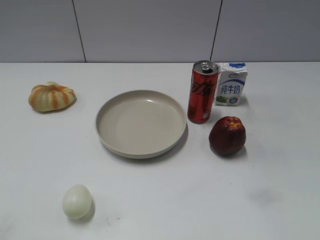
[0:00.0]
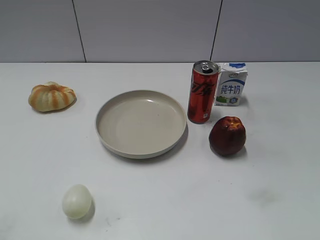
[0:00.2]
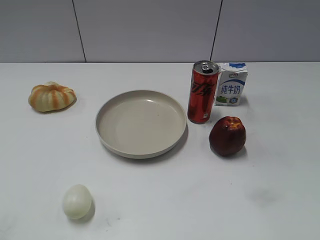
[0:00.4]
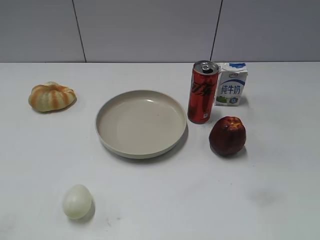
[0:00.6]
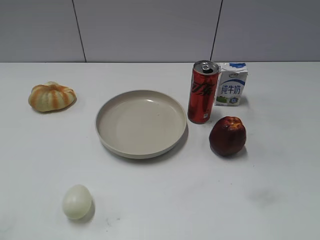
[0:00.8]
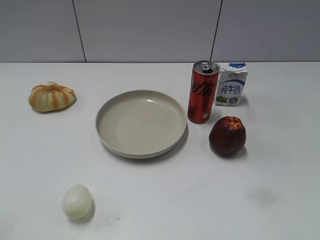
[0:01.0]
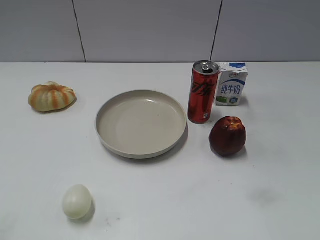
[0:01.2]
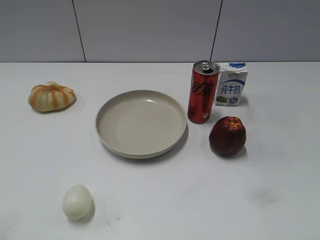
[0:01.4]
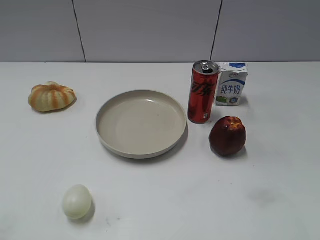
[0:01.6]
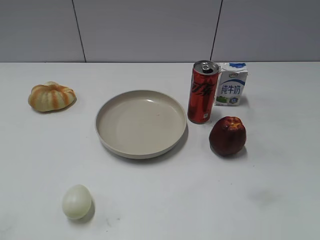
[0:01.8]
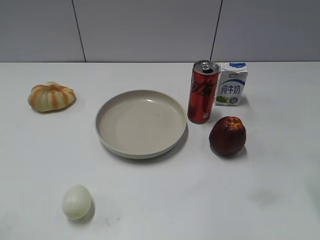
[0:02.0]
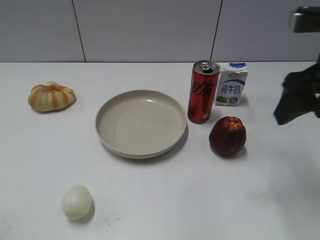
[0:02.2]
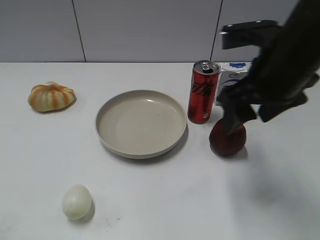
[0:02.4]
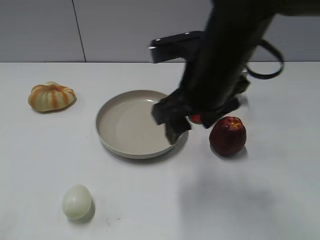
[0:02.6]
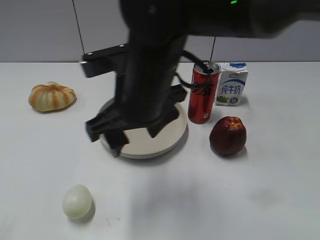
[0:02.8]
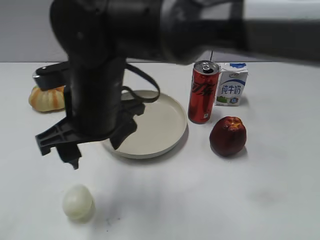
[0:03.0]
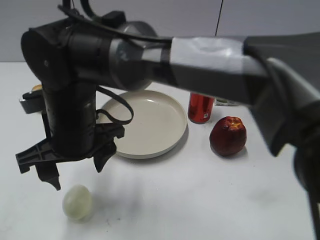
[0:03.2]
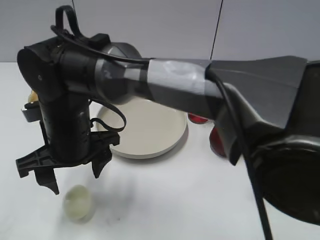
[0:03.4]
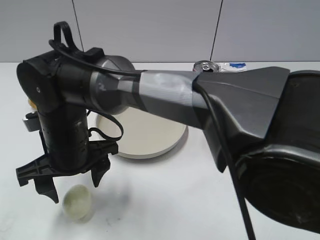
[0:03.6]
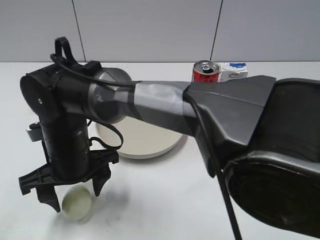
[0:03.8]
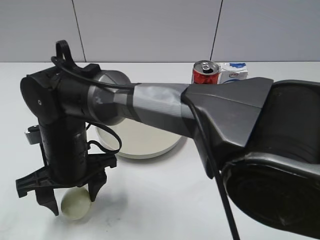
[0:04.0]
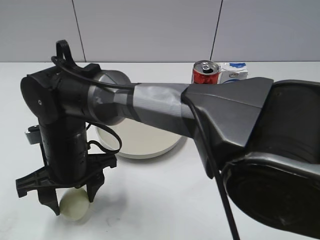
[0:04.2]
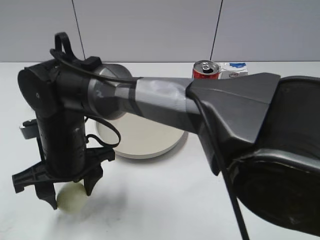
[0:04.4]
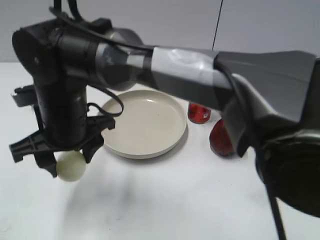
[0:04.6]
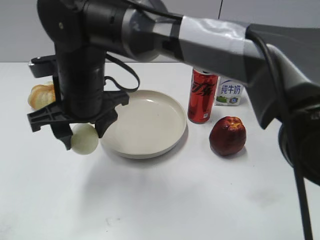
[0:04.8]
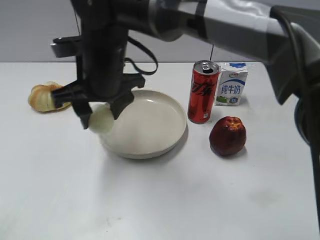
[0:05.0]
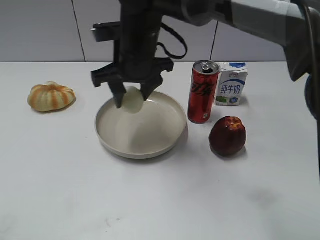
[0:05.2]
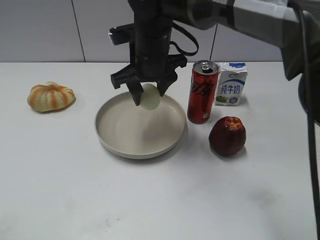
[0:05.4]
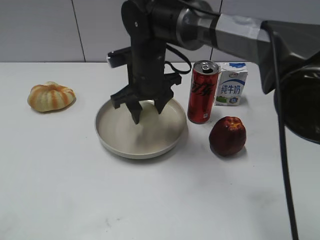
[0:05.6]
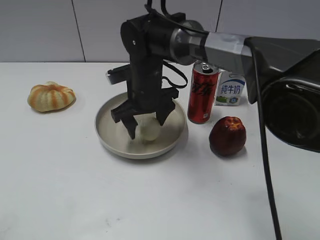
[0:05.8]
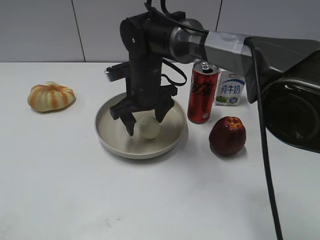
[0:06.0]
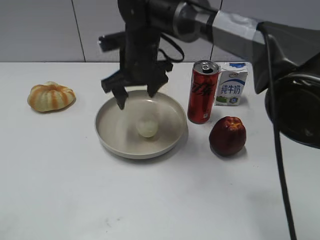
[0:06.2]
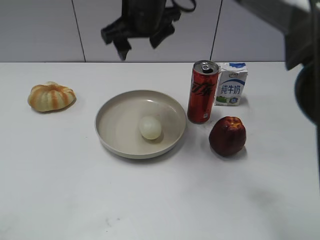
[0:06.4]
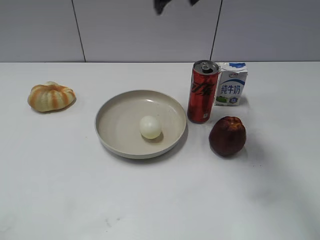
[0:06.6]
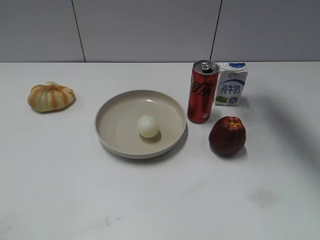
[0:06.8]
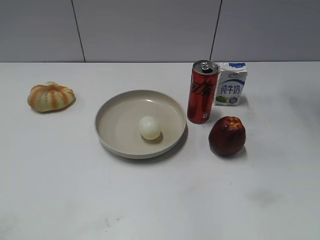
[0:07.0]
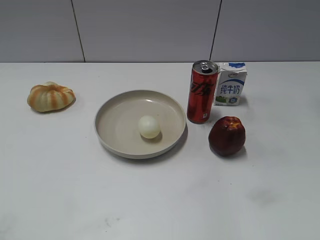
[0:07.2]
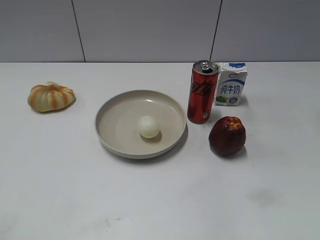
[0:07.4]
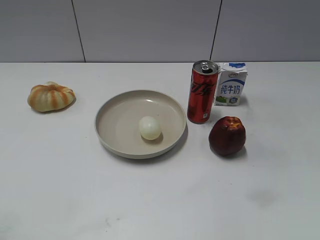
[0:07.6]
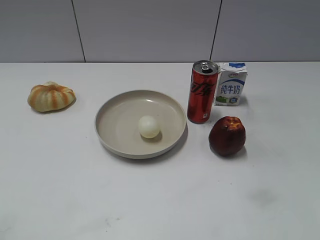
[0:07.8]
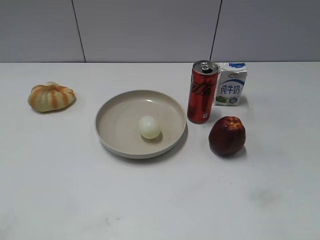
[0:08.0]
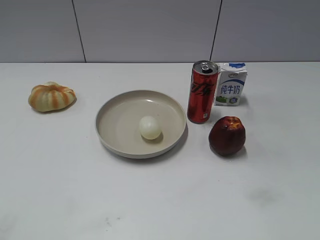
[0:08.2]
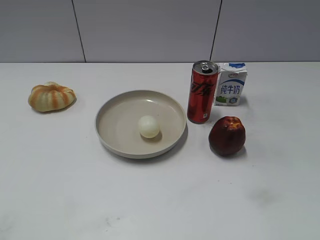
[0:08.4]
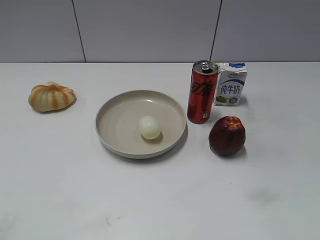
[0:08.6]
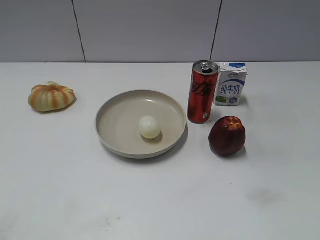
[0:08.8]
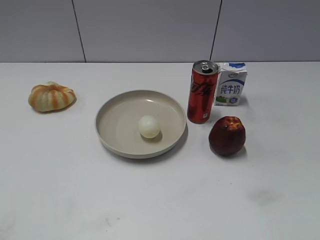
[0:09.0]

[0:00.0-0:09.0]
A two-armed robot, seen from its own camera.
Step, 0:01.0 to 0:04.2: Grasp the egg with right gripper.
Step, 0:04.4 to 0:06.0: Place the egg on the plate with right gripper.
0:01.6 to 0:03.0: The right gripper goes some 40 cm to the left.
0:03.0 to 0:04.4: The right gripper travels downward and to the left by some 10 cm, and closes up.
0:04.4 to 0:06.0: The right gripper travels forward and to the right by approximately 20 cm, and opens up.
0:06.0 to 0:07.6: The right gripper shifts approximately 40 cm to the right and upward.
